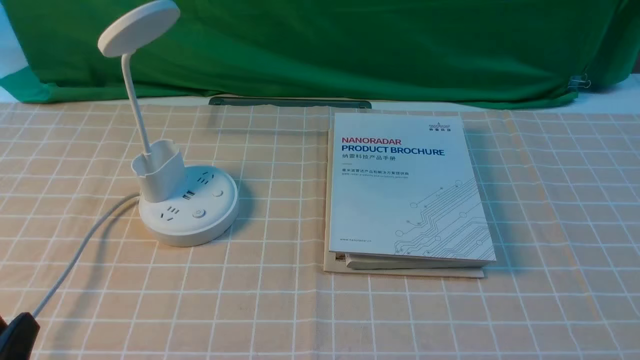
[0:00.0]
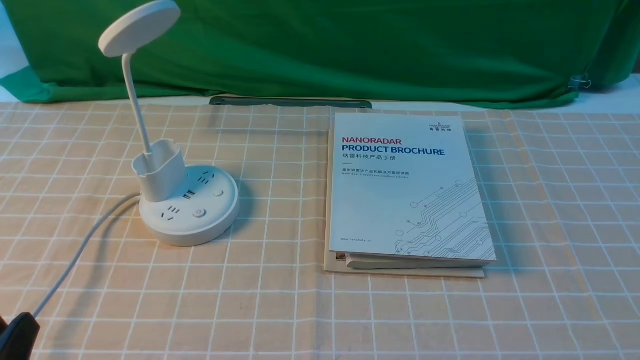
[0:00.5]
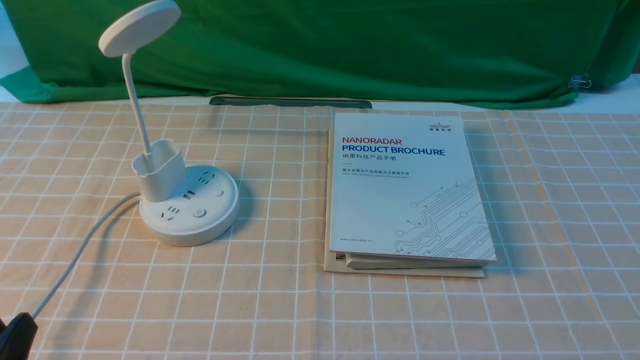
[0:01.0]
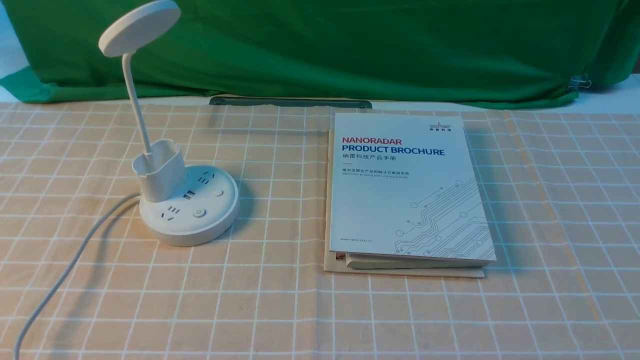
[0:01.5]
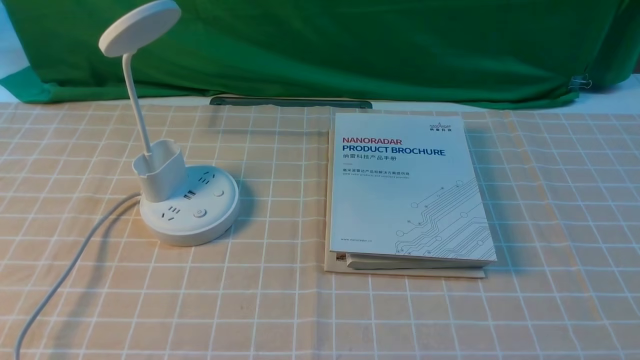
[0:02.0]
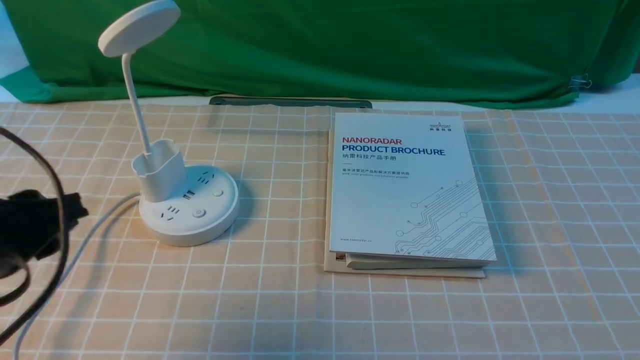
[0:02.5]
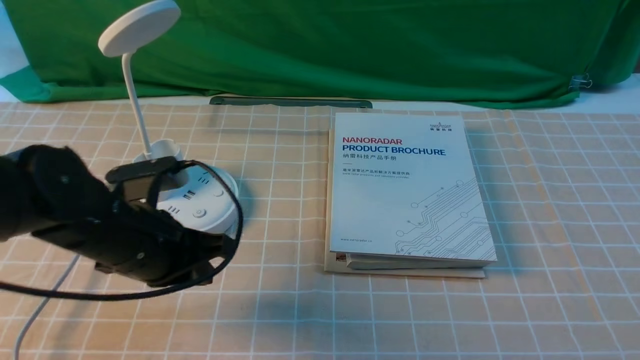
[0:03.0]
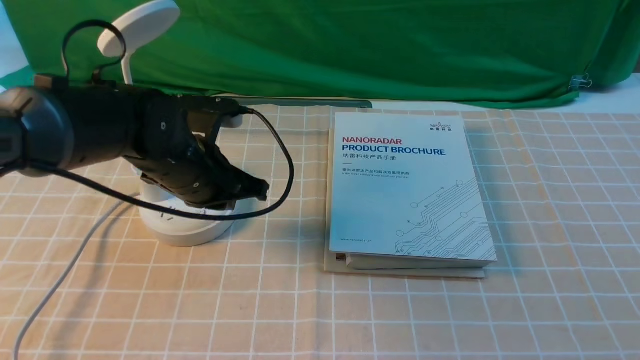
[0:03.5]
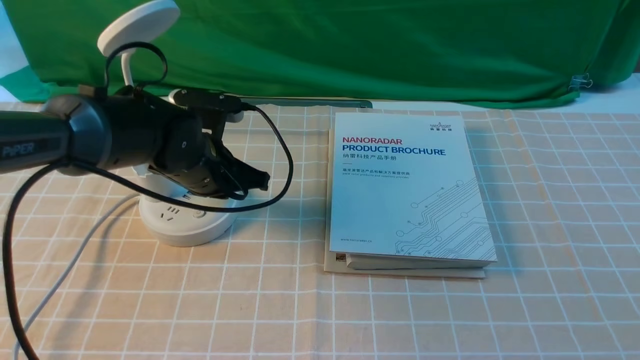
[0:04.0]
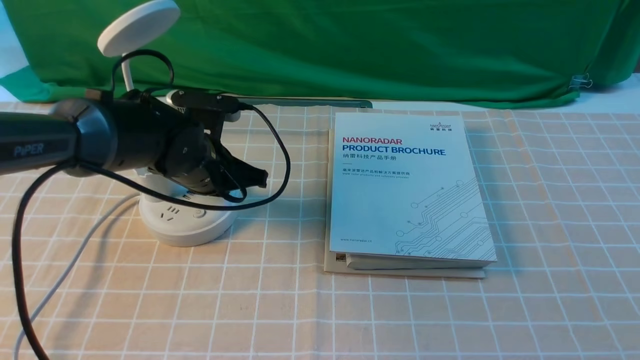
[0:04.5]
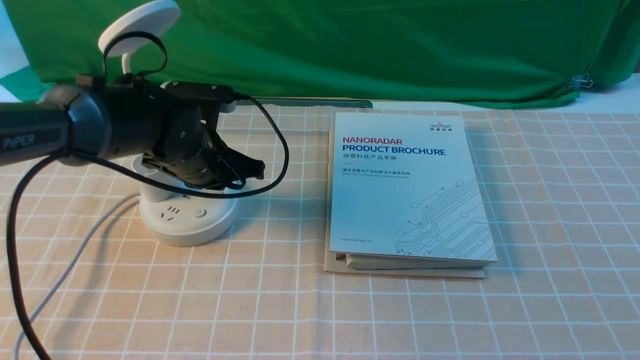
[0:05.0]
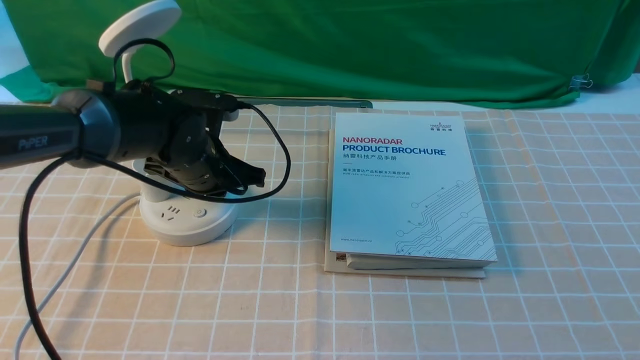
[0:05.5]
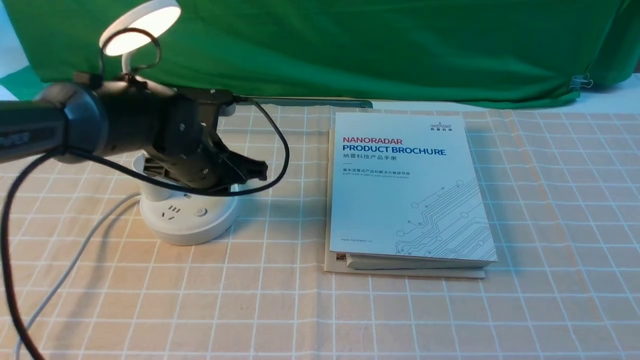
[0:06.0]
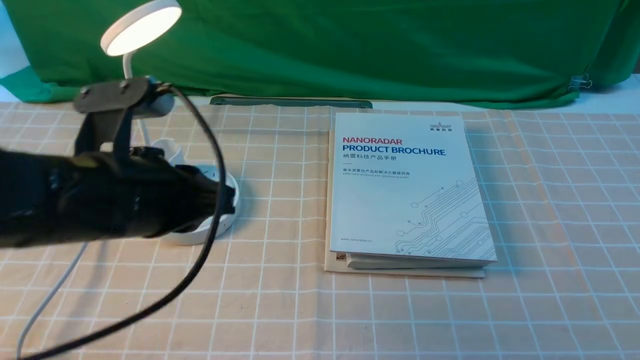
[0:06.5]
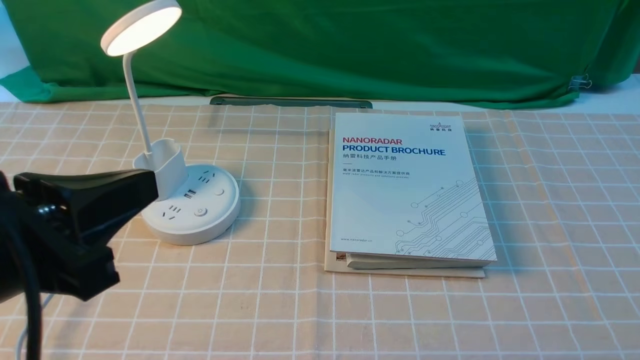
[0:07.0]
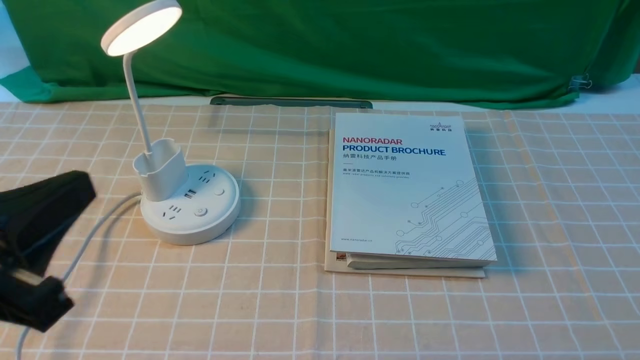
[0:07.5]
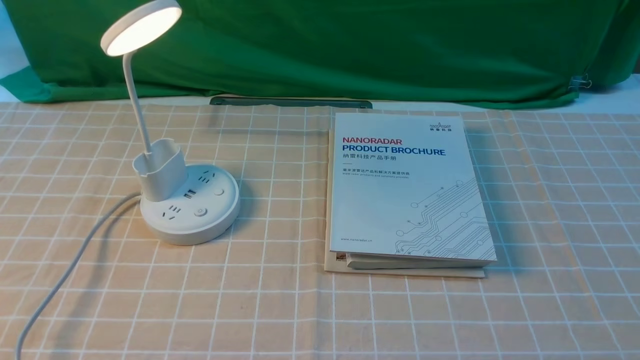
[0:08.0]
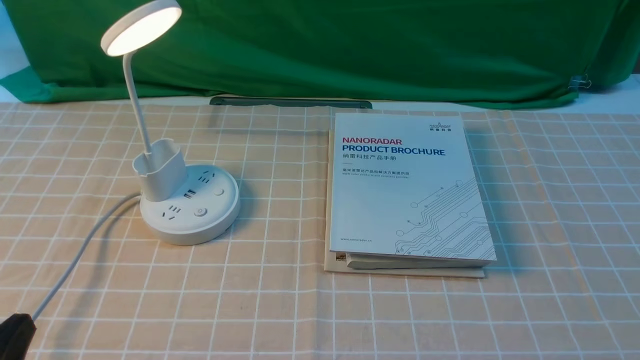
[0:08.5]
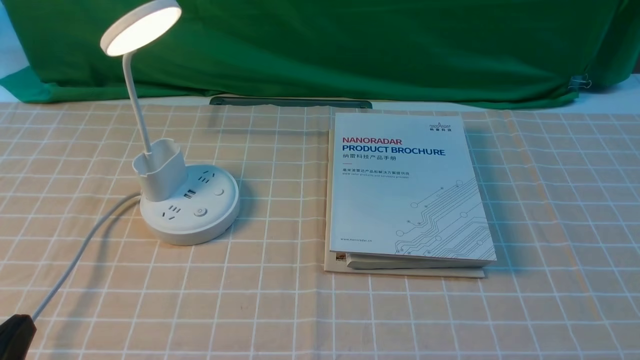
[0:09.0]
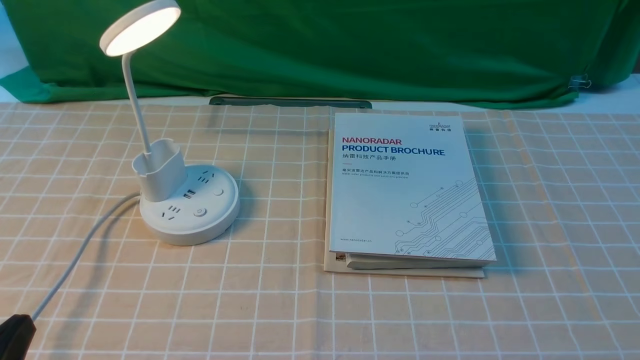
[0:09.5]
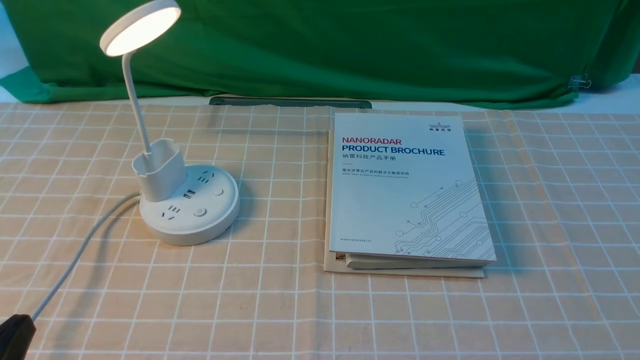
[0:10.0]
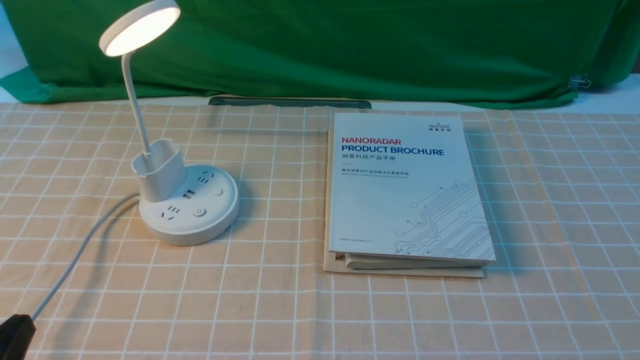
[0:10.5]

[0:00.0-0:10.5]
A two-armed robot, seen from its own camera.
Step, 0:00.0 to 0:06.0: use the left arm to press the button switch on the lamp holder.
0:00.0 to 0:02.0: The left gripper heads upward, covering roughly 15 cm.
0:02.0 to 0:04.0: The left gripper goes roughly 40 cm forward, downward and to the right, and closes its fingers.
0:04.0 to 0:06.5: The left gripper heads backward and upward, covering roughly 20 cm.
0:06.5 to 0:08.5: The left gripper goes about 20 cm backward, downward and to the left.
0:08.5 to 0:10.5: Neither gripper changes place.
